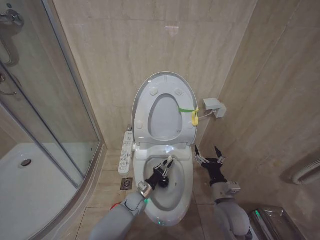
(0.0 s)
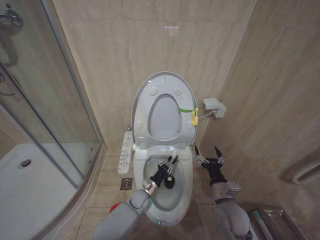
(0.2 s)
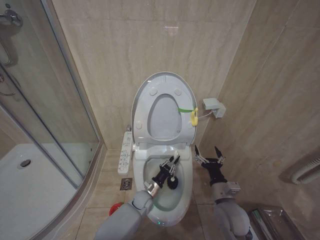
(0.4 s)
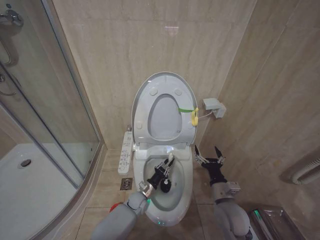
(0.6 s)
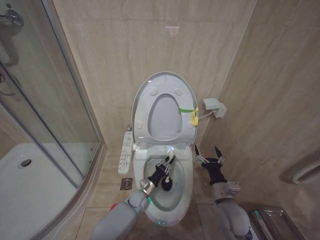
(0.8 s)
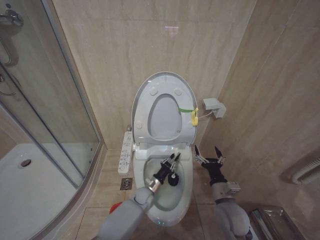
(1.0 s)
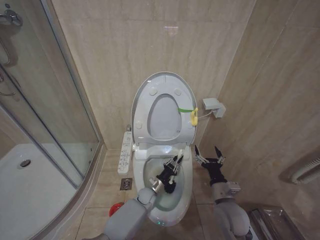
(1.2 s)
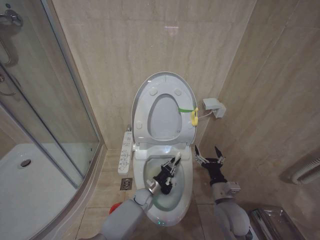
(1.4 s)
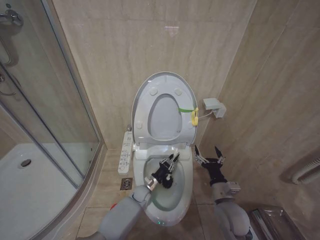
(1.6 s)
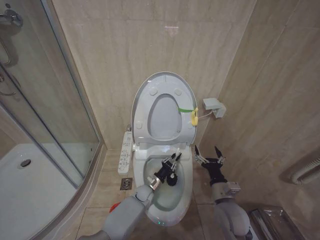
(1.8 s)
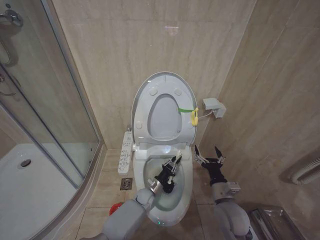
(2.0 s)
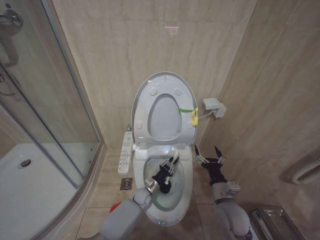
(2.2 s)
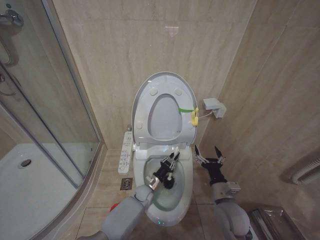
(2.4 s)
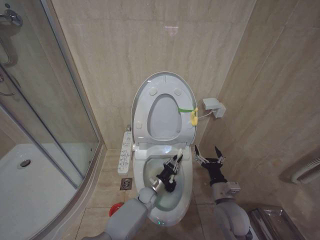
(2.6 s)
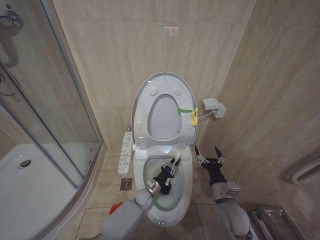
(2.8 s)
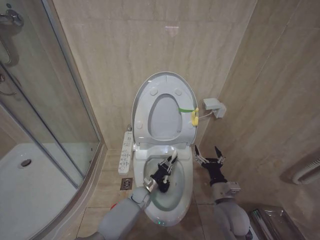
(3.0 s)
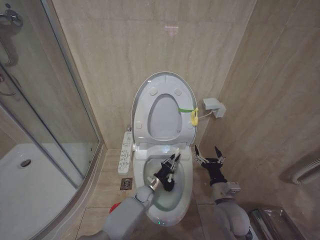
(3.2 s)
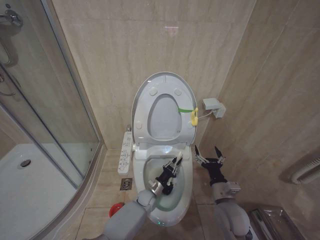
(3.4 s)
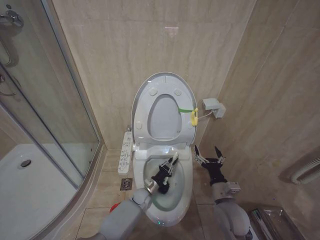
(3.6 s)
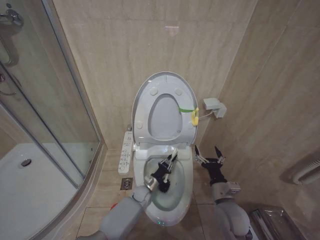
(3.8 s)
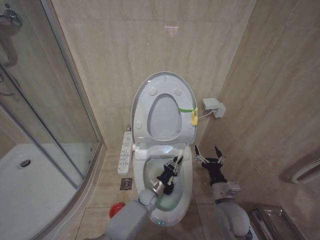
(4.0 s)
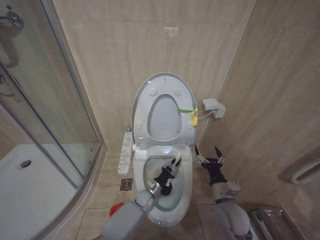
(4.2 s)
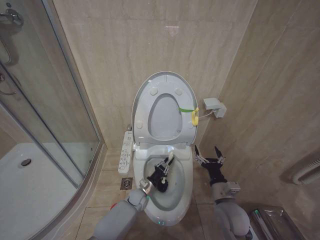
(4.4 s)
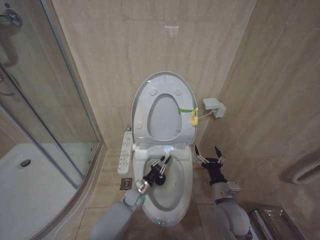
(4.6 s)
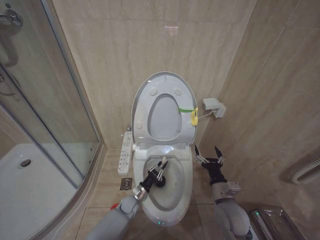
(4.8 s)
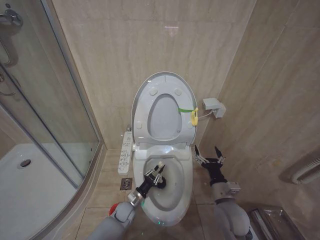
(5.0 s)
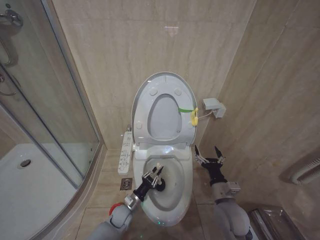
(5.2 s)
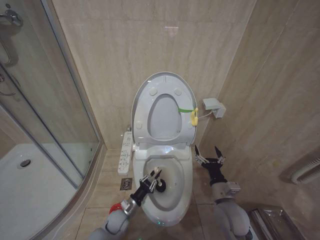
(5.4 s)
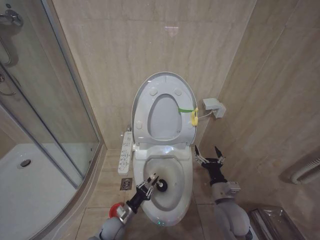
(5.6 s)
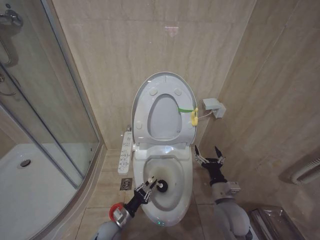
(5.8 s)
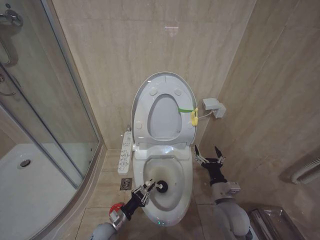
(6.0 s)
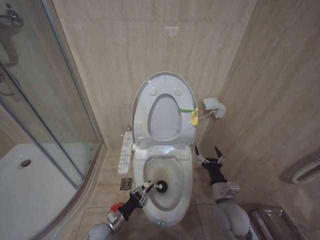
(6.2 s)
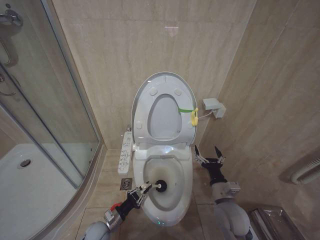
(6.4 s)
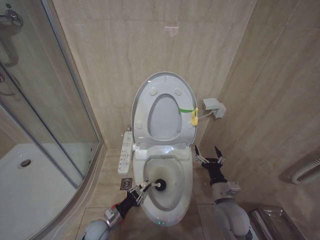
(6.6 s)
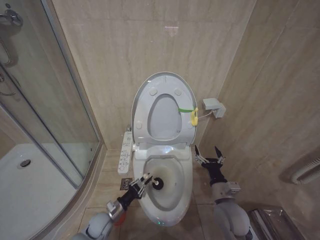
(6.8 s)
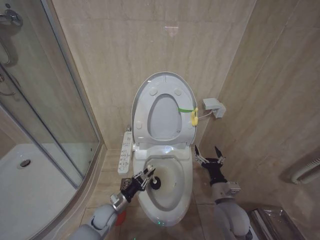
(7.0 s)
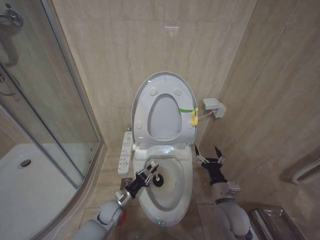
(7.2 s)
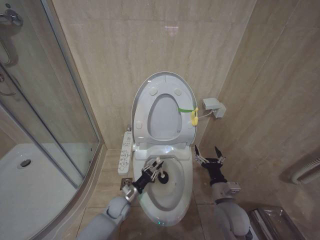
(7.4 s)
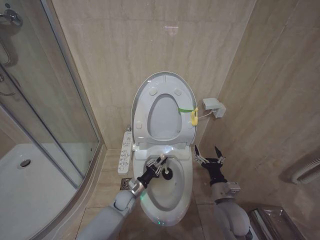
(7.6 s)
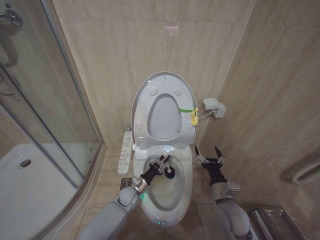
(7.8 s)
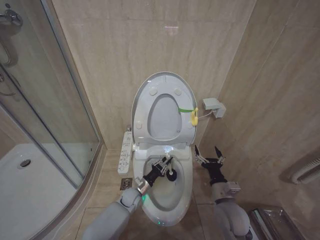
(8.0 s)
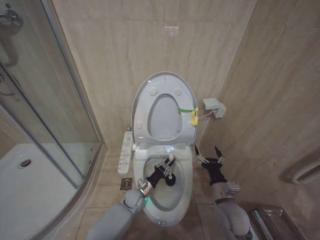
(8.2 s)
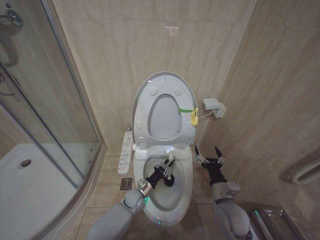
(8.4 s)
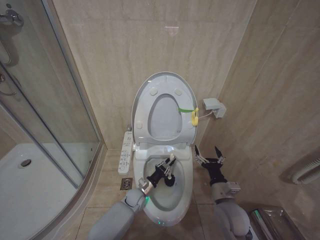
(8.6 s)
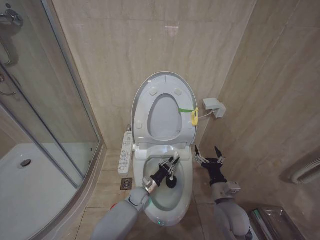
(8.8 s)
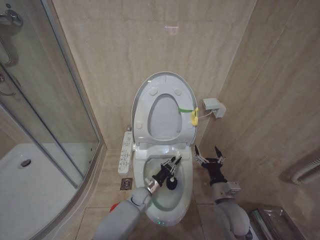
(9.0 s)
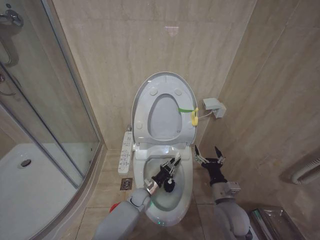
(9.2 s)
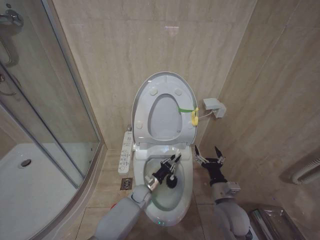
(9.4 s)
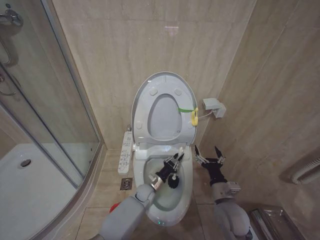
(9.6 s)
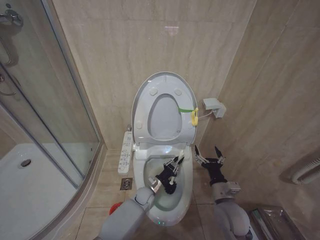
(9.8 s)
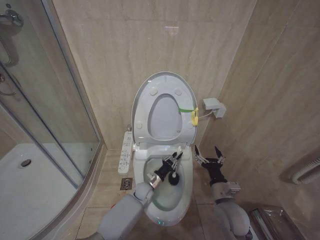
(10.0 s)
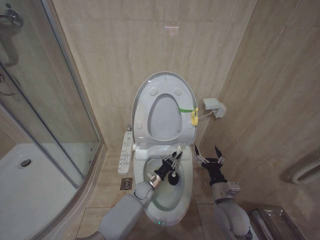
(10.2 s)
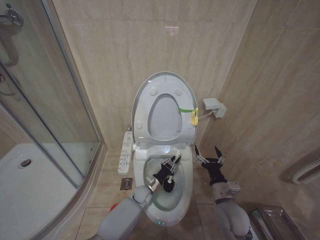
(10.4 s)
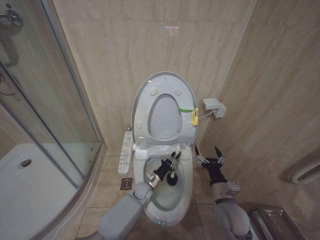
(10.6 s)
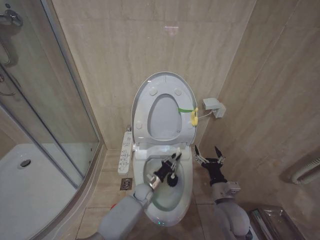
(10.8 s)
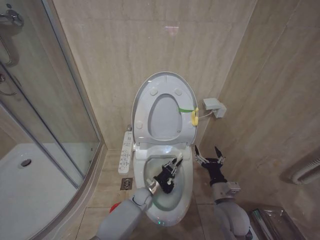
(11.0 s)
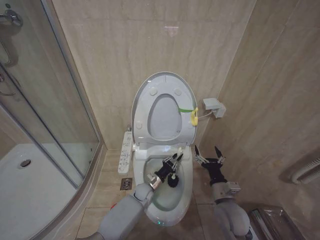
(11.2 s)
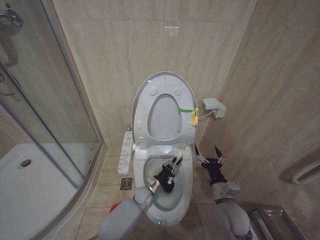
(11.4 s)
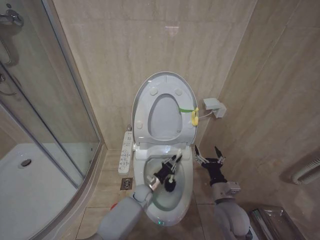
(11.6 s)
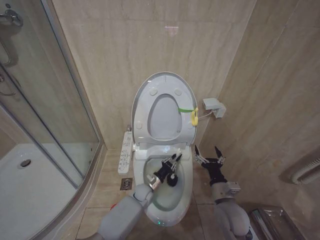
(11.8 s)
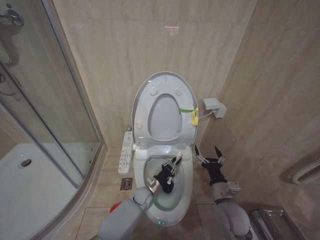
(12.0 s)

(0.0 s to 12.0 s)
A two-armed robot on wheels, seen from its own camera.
Task of the whole recording: Open the toilet lid, clean the toilet bowl with a toilet brush, close the toilet lid, and flush.
4.4 s - 6.0 s: The left gripper shifts roughly 20 cm backward and to the left.
6.0 s - 7.6 s: The left gripper is displaced forward and to the right by about 10 cm.
7.6 s - 9.0 s: The left gripper goes roughly 10 cm to the right.

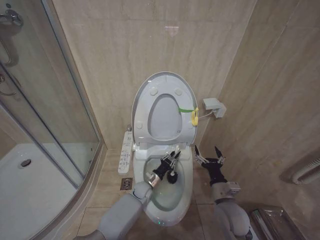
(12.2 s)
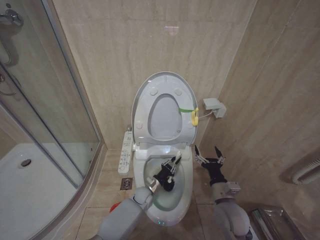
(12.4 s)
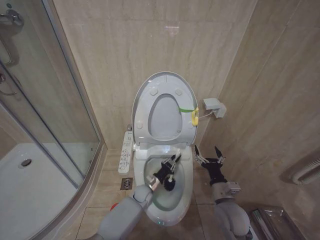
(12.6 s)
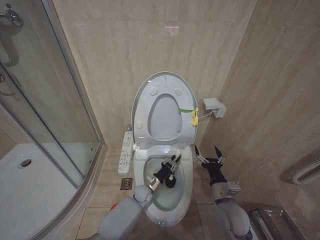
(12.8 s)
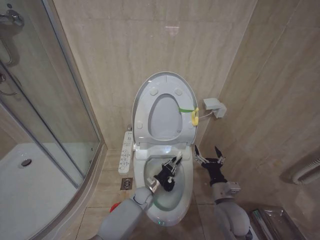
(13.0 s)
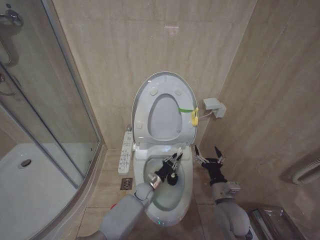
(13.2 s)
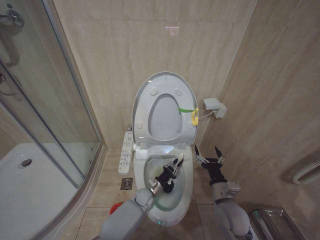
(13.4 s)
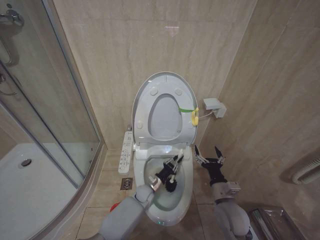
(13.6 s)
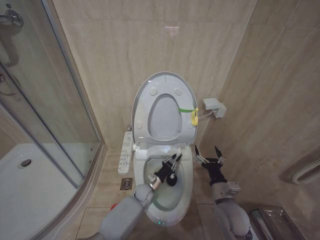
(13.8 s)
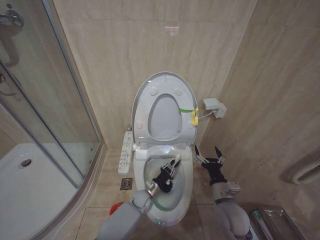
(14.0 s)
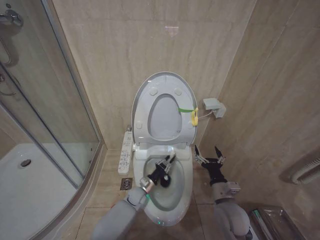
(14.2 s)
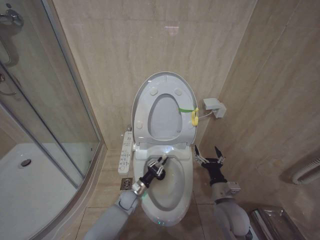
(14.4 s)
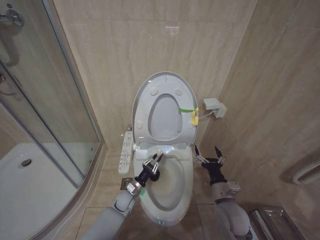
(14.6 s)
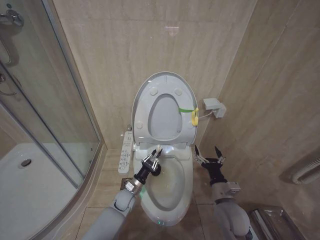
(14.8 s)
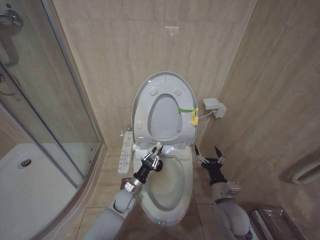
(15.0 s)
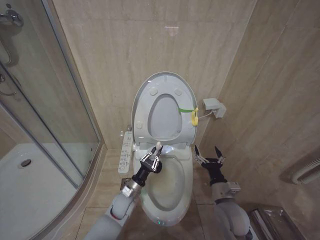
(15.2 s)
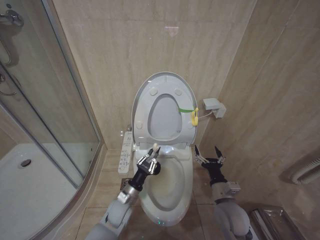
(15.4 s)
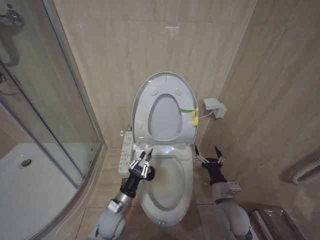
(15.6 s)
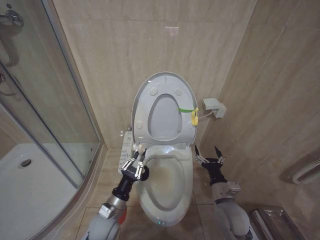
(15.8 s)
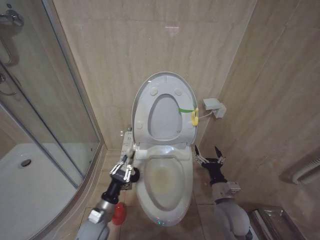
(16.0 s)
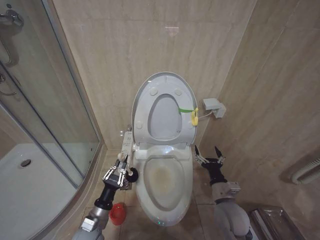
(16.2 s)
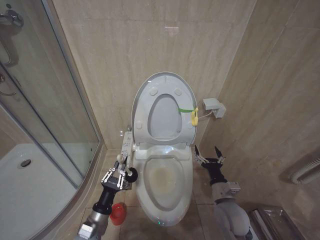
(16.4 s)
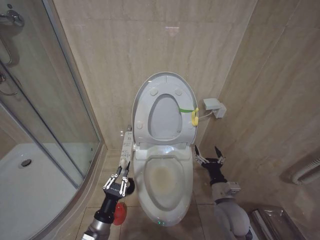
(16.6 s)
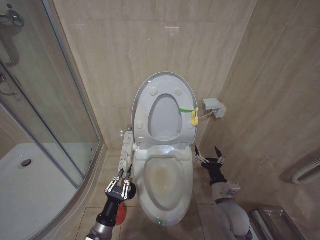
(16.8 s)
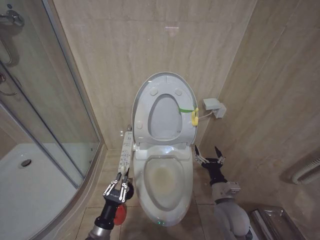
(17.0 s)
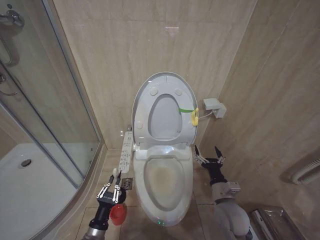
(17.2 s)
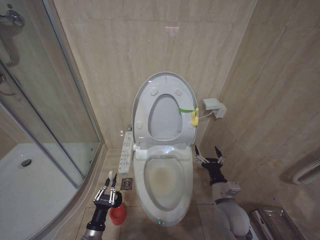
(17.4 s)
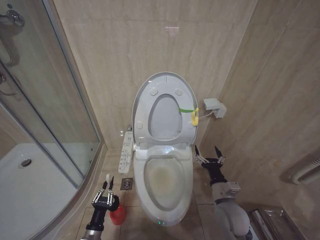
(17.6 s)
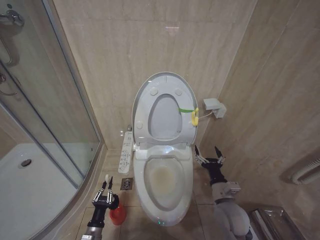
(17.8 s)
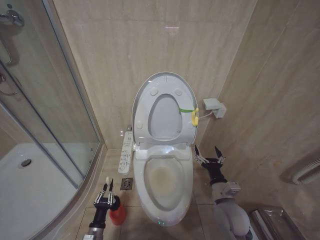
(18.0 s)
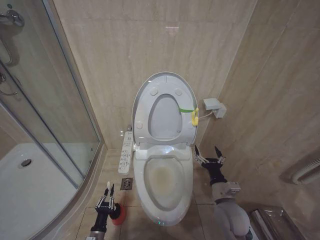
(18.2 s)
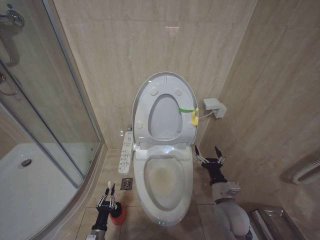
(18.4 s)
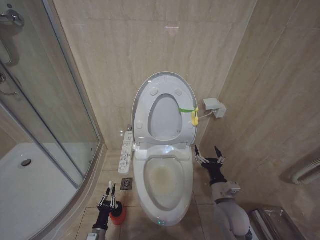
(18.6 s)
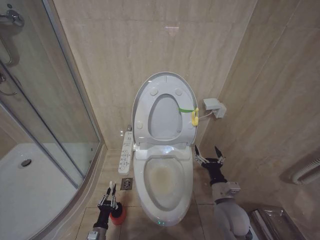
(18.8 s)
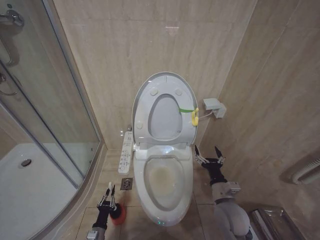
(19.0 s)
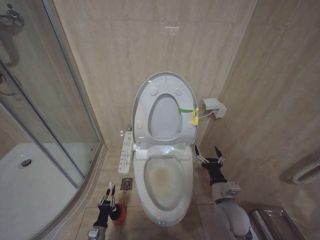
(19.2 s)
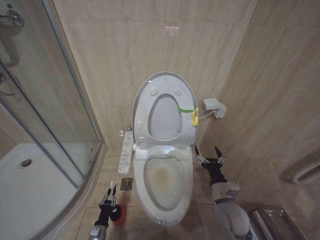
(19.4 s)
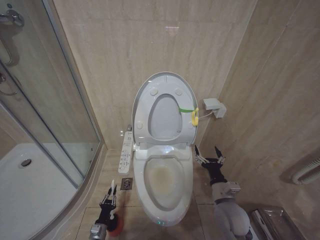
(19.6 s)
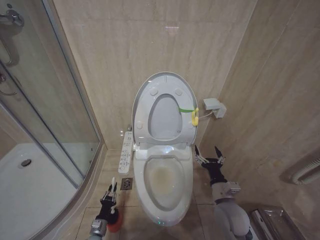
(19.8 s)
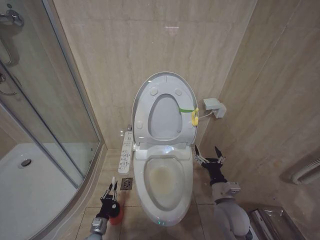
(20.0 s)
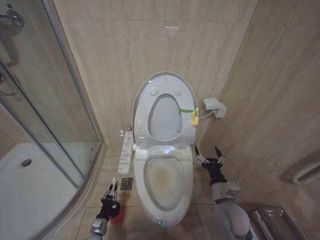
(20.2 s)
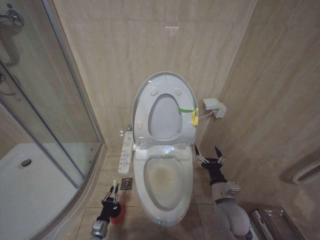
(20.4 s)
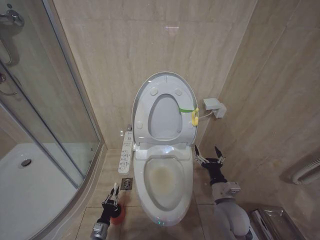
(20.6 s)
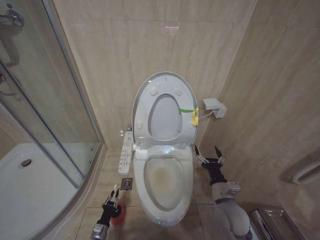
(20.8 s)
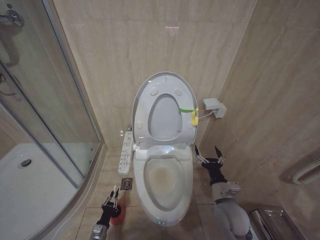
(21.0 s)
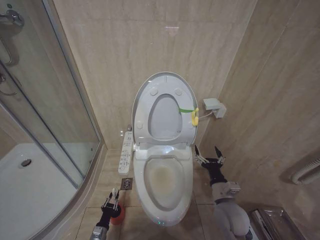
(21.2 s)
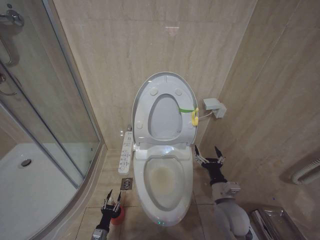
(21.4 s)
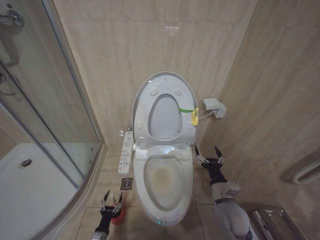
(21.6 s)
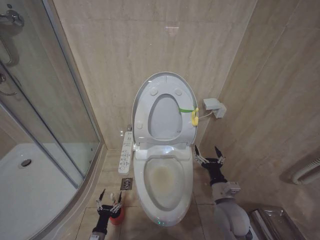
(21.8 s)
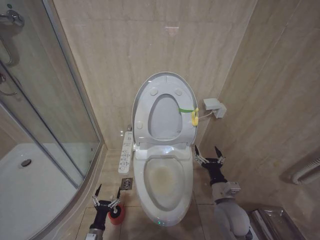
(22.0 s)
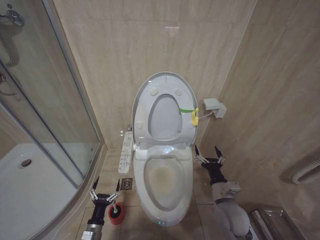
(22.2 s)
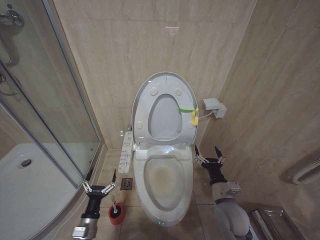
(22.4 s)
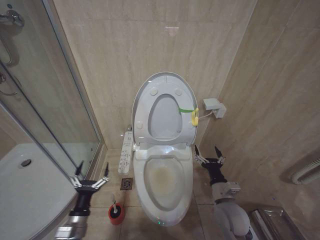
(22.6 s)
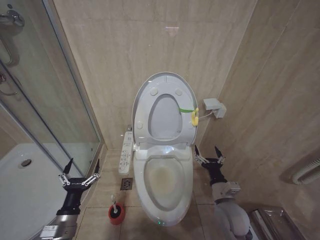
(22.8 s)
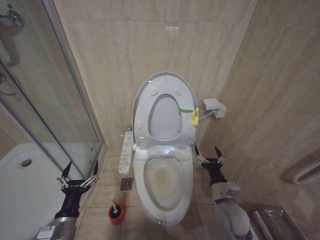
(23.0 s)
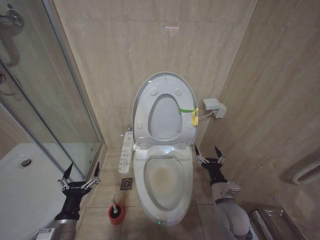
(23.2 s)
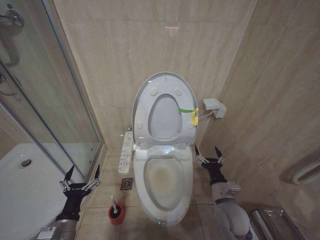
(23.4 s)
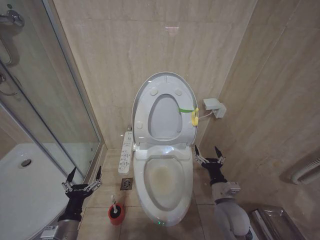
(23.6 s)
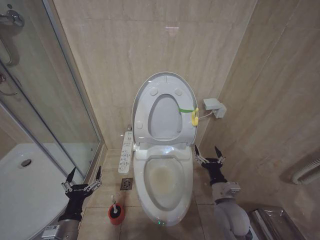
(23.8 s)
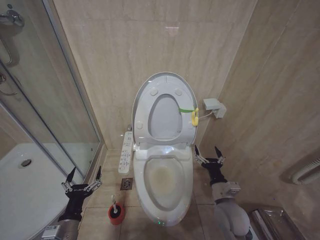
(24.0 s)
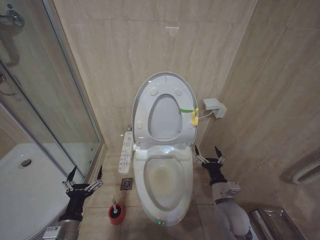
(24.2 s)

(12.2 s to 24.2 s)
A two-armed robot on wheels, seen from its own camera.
Task of the whole recording: Open the toilet lid, clean the toilet bowl with a toilet brush, close the toilet lid, and flush.
13.8 s - 15.2 s: The left gripper moves to the left, backward and upward, some 10 cm.
15.2 s - 16.6 s: The left gripper travels backward and to the left by some 20 cm.
16.6 s - 18.2 s: The left gripper travels downward by roughly 20 cm.
18.2 s - 19.8 s: The left gripper travels downward and forward by approximately 10 cm.
21.2 s - 22.6 s: The left gripper goes roughly 25 cm upward, and opens.
22.6 s - 24.2 s: The left gripper is displaced upward by roughly 5 cm.
